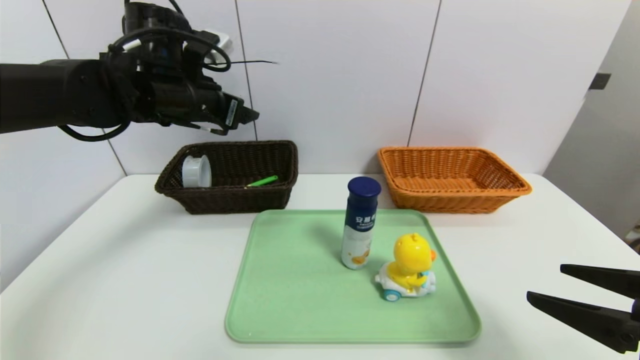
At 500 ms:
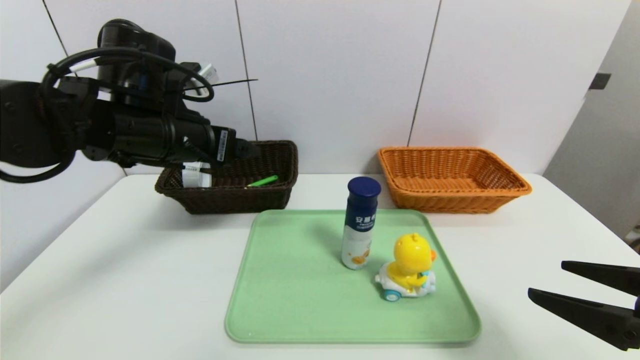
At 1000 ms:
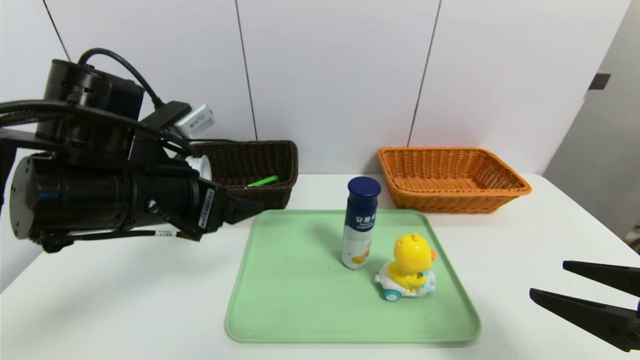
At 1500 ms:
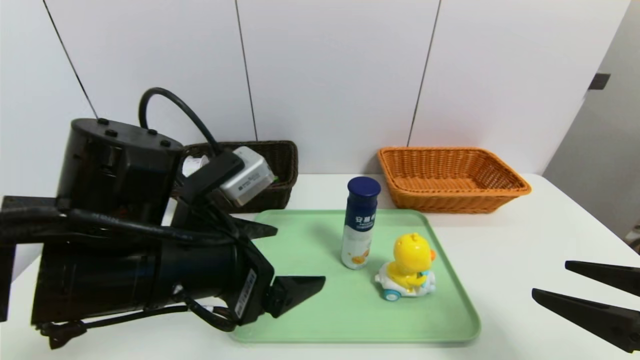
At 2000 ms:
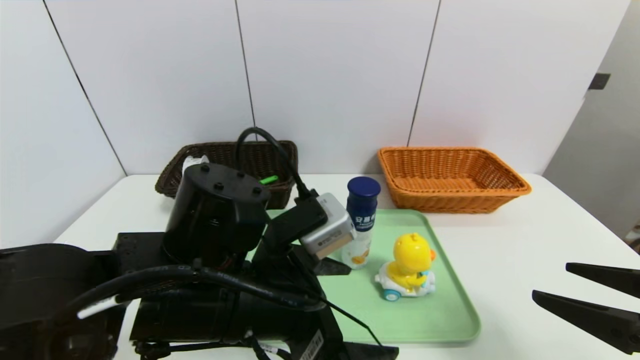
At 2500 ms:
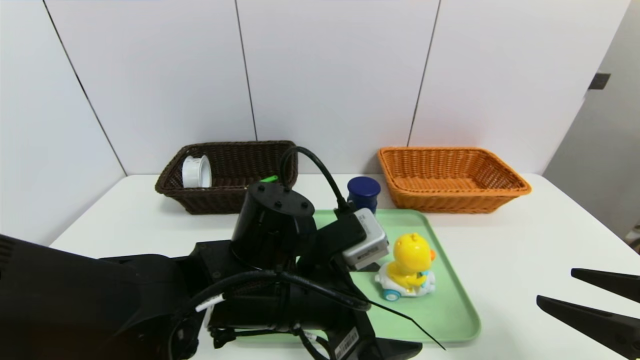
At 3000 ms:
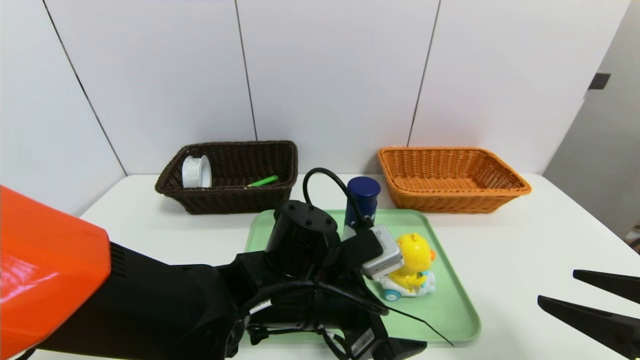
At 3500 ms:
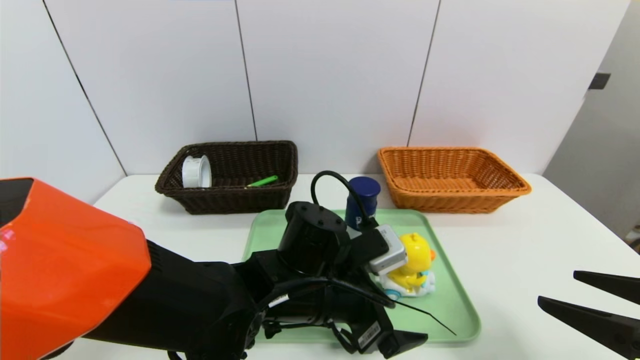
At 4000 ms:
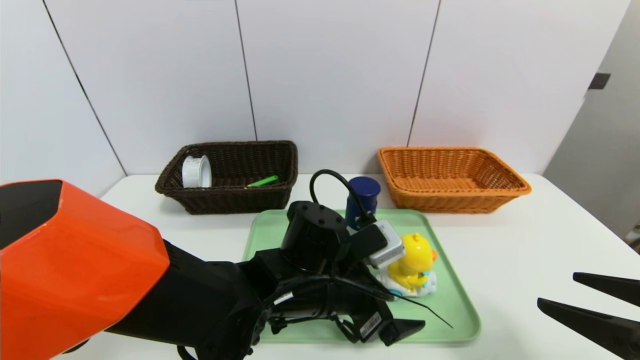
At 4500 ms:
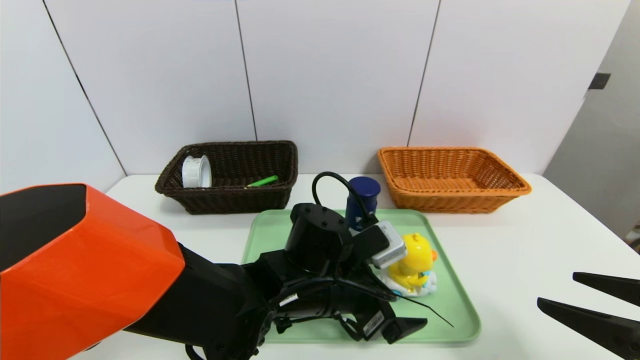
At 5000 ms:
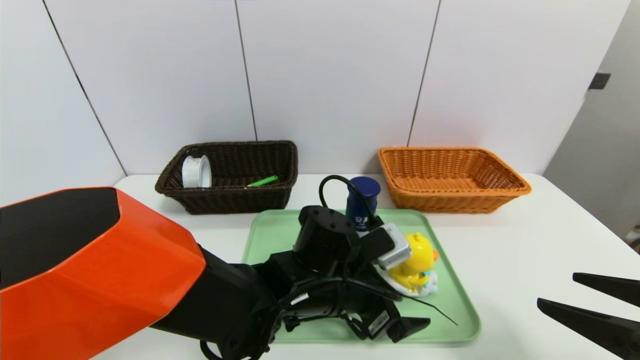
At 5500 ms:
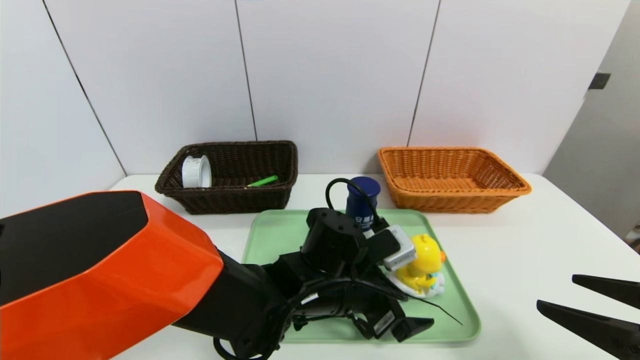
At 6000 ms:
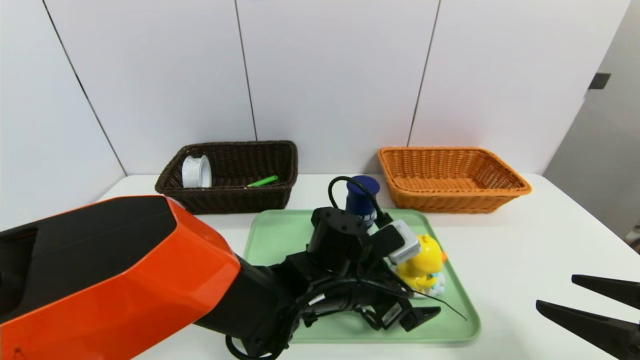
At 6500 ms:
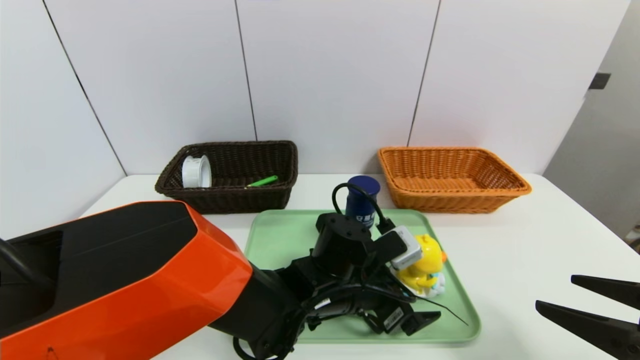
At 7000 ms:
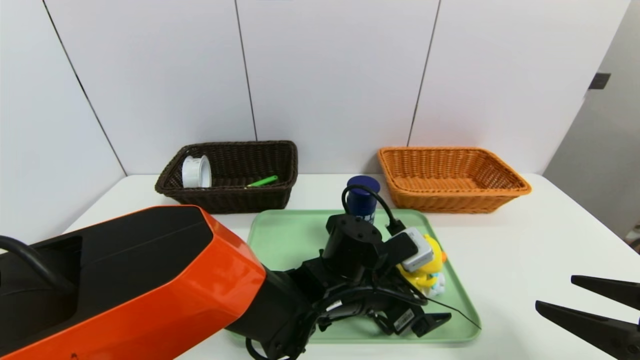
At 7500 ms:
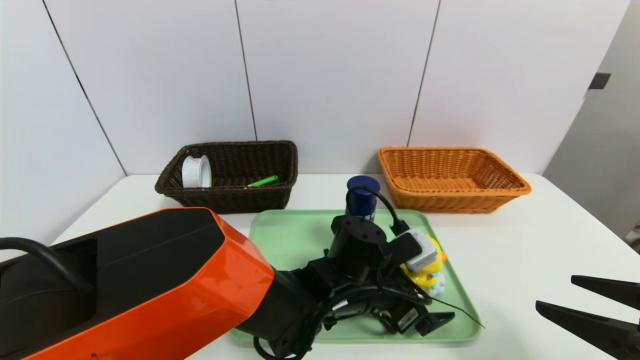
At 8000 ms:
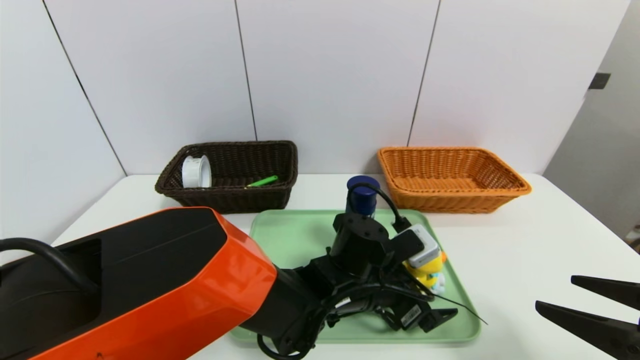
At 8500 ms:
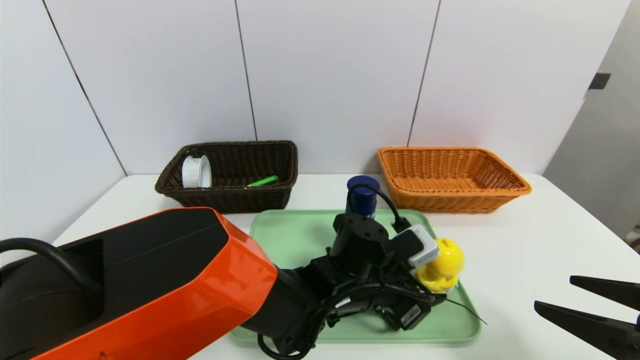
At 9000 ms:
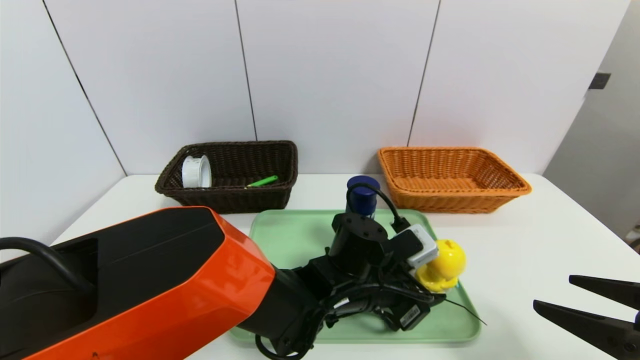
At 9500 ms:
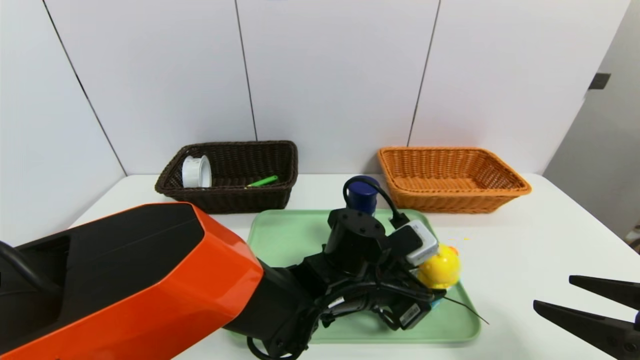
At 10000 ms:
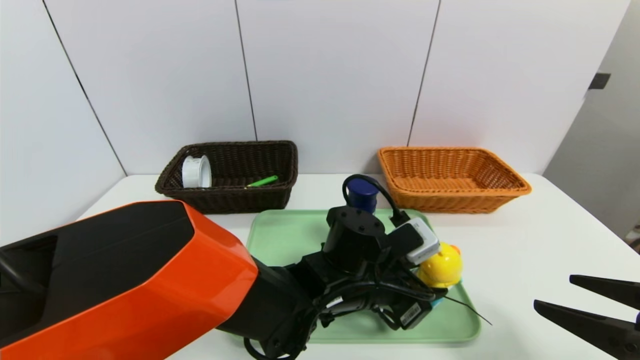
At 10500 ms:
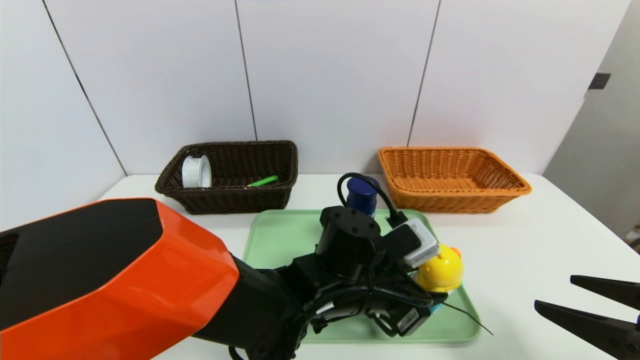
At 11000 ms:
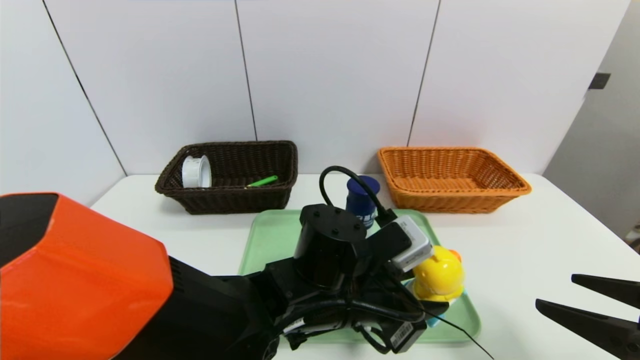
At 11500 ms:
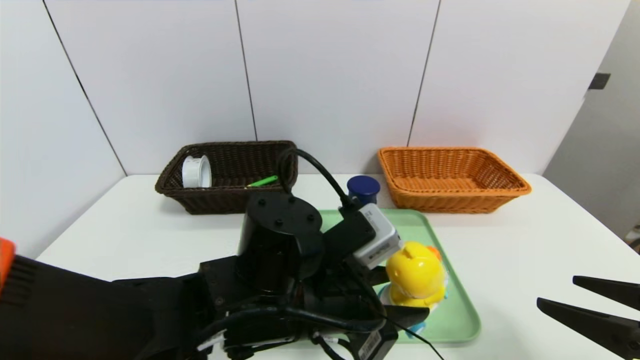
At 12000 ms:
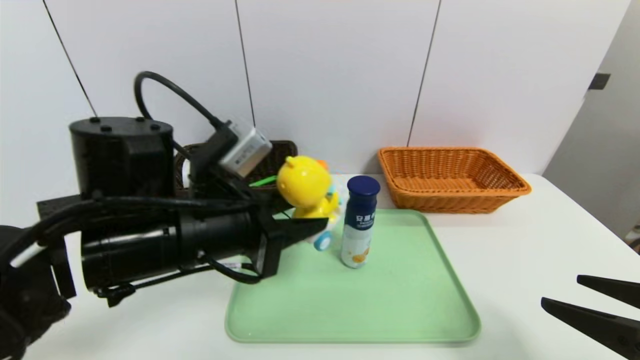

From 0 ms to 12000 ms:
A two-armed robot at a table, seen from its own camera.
Task of the whole recording: place the food in the right basket with the right gripper, and place the non food items in the left basket with the left gripper.
From 0 ms to 2000 ms: The left gripper is displaced backward, to the right and downward by roughly 25 cm.
From 2000 ms to 4000 ms: The left gripper is displaced downward, to the right and forward by roughly 10 cm.
From 4000 ms to 6000 ms: The grippers make only small movements.
From 6000 ms to 8000 ms: The grippers make only small movements.
From 8000 ms to 10000 ms: The left gripper closes up.
From 10000 ms to 12000 ms: The left gripper travels to the left and upward by roughly 20 cm.

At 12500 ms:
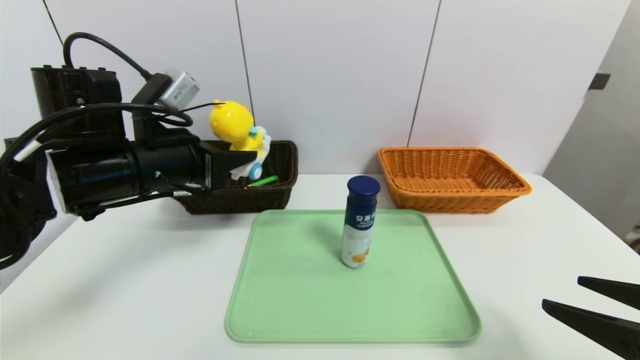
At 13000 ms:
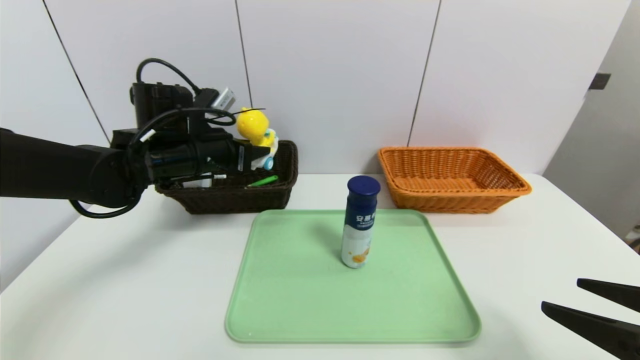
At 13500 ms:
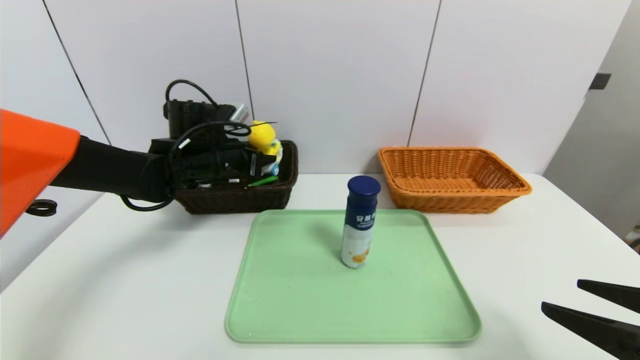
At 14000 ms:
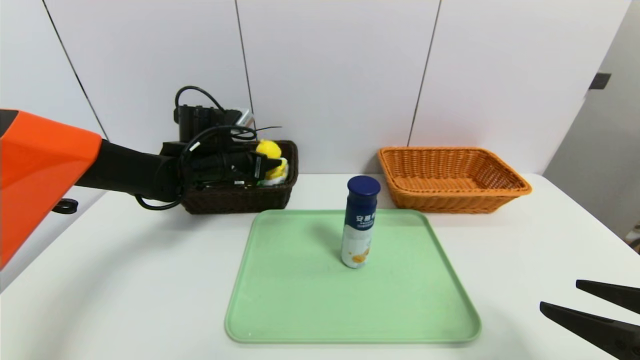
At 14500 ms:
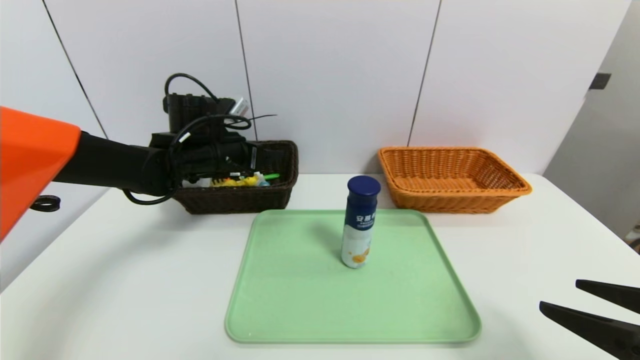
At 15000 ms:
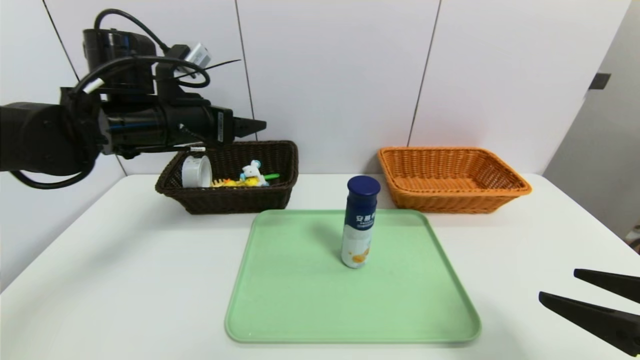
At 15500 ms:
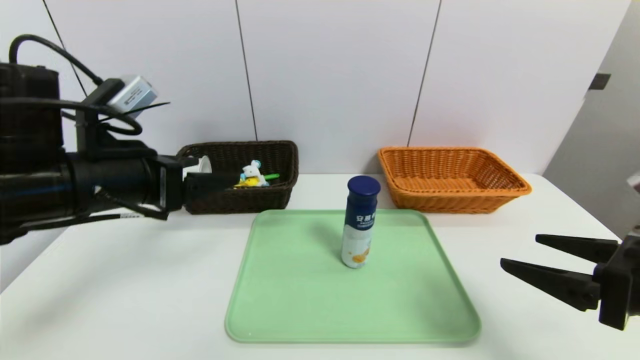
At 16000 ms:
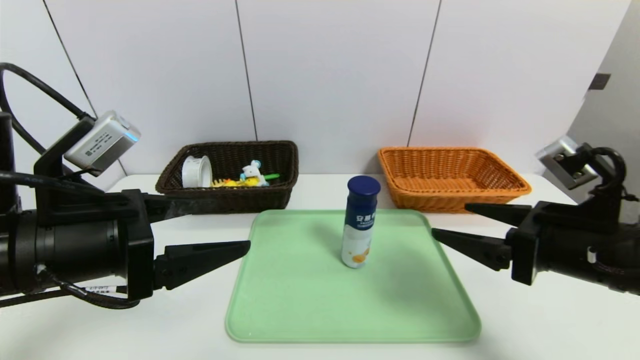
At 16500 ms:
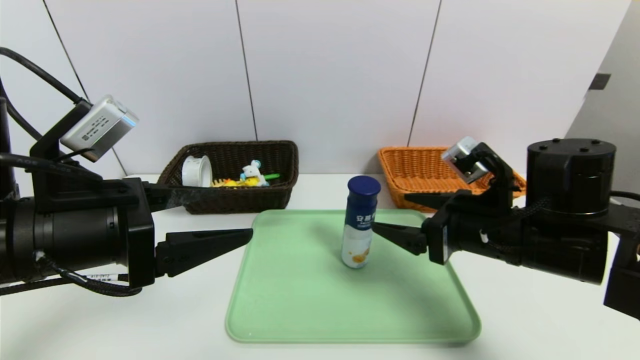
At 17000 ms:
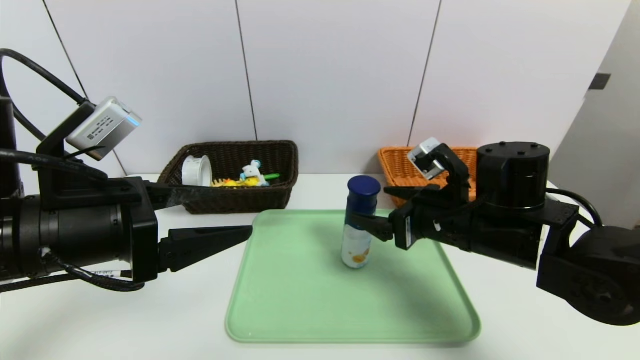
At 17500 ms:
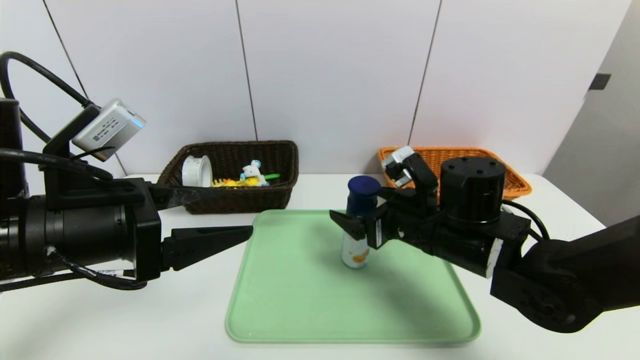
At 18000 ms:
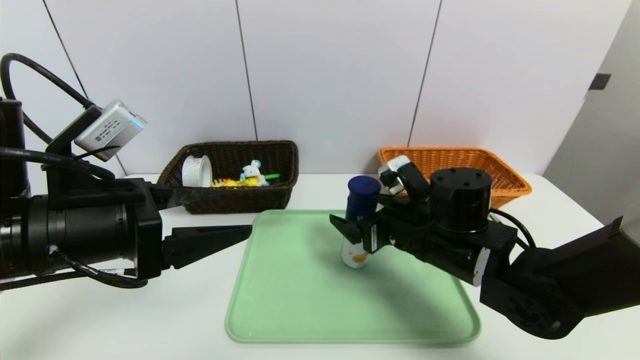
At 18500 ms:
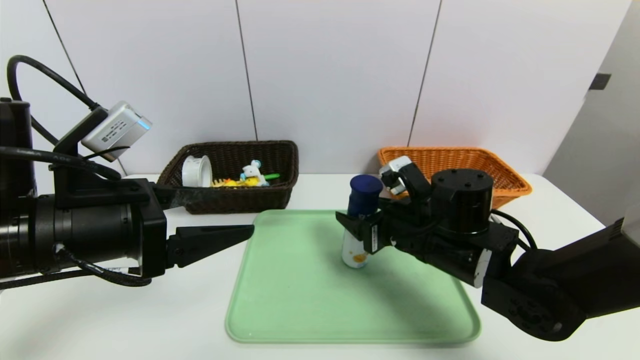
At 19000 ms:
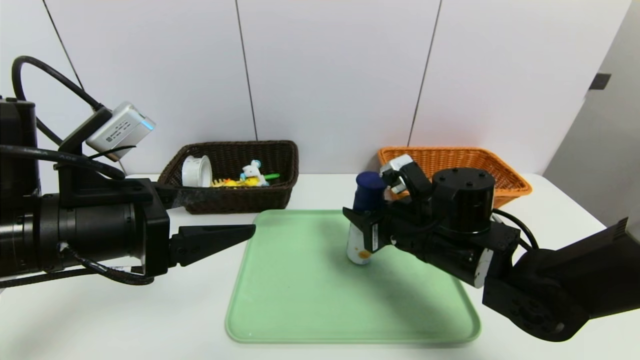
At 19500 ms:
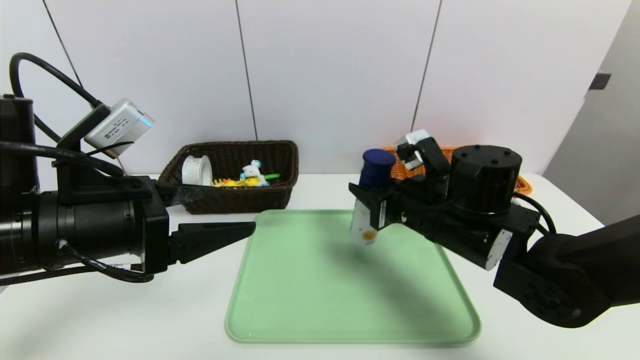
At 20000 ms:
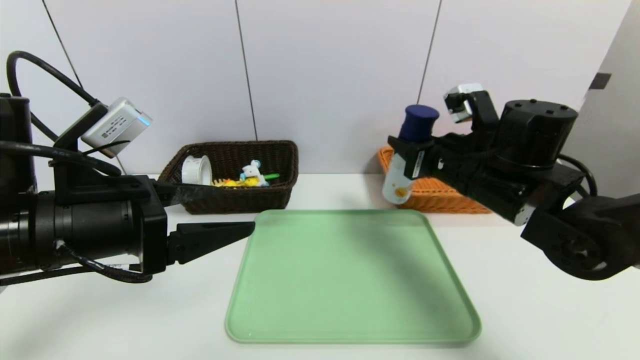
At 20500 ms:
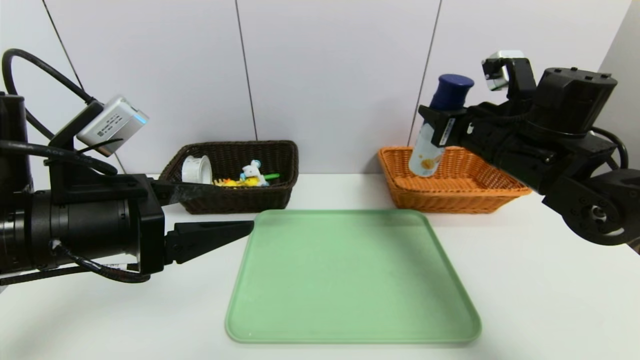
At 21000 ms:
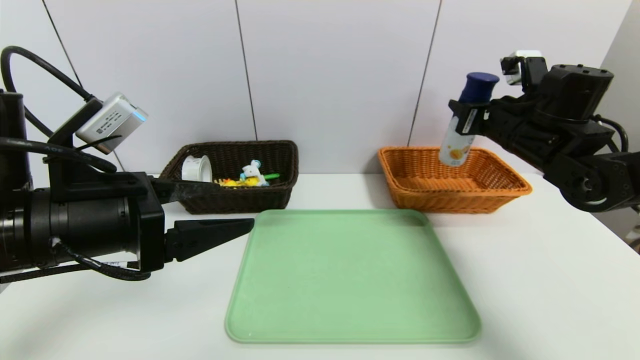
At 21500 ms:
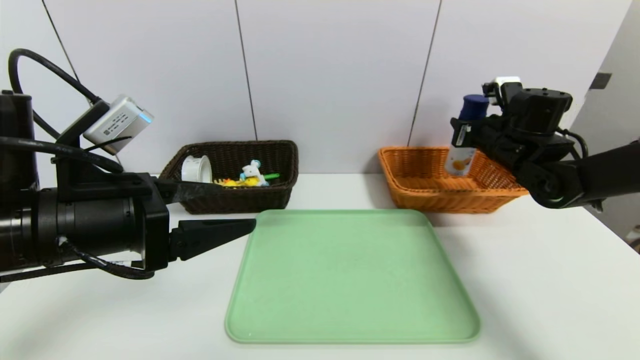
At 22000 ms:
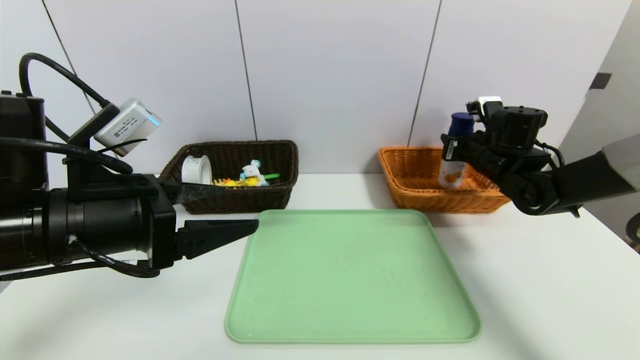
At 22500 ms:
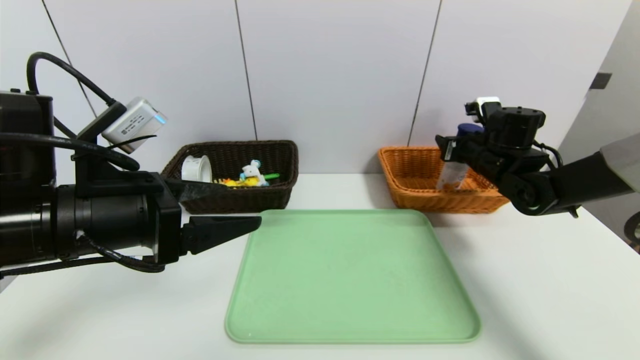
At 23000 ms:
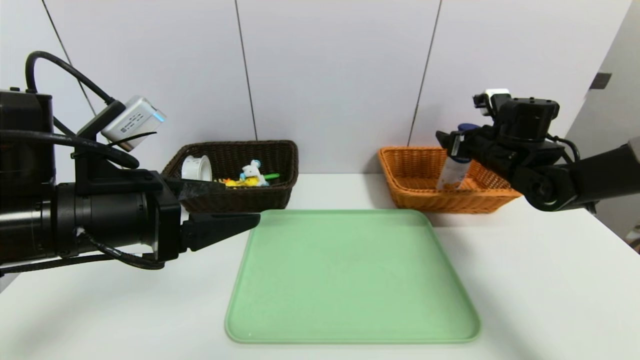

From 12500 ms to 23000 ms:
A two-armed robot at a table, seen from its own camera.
Task of the whole recording: place the food in the right basket with the right gripper, and place the non food items in the left basket with the left gripper.
Step, from 12500 ms to 14500 ms: Grasp the duck toys and put it in the left basket.
Step, from 15000 ms to 22500 ms: Grasp the yogurt and put it in the right basket.
From 12500 ms to 14500 ms: The left gripper travels forward by roughly 15 cm, and opens up.
From 14500 ms to 16500 ms: The right gripper travels forward and to the left by approximately 20 cm. Meanwhile the left gripper is displaced backward by about 25 cm.
From 16500 ms to 19000 ms: The right gripper moves to the left, approximately 5 cm, and closes up.
From 19000 ms to 21000 ms: The right gripper goes approximately 20 cm to the right, forward and upward.
From 21000 ms to 23000 ms: The right gripper travels downward by about 5 cm, and opens its fingers.
